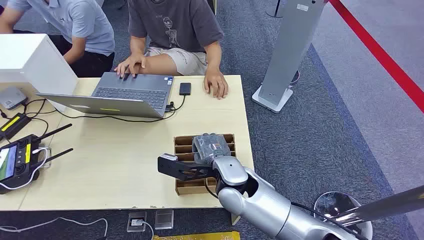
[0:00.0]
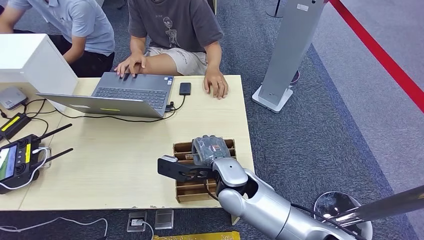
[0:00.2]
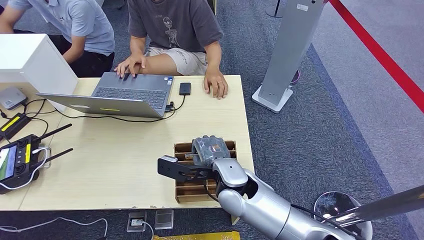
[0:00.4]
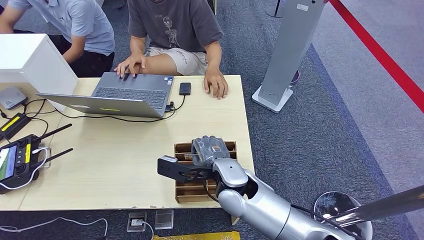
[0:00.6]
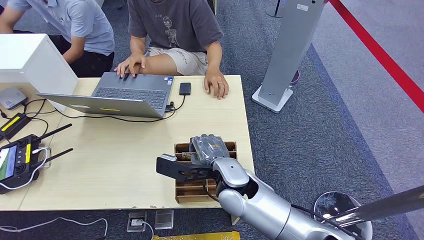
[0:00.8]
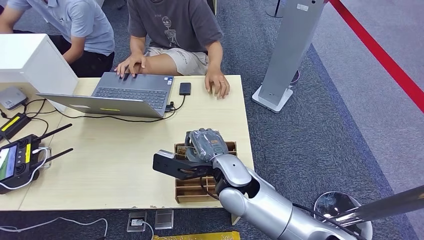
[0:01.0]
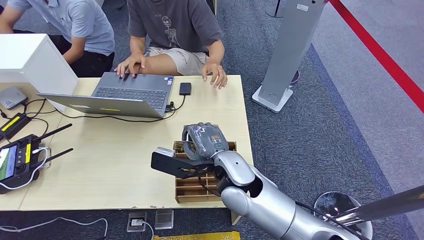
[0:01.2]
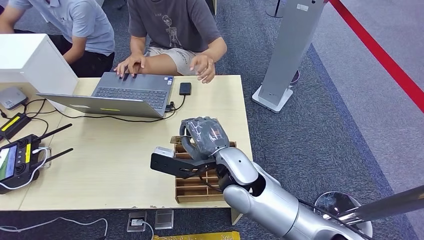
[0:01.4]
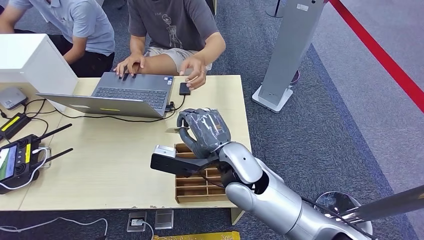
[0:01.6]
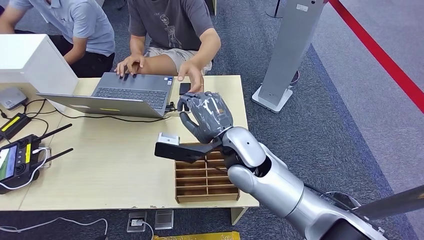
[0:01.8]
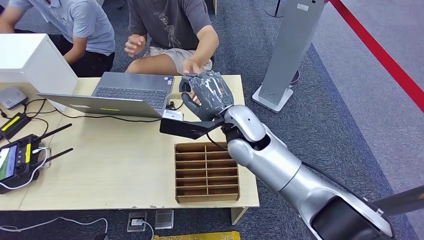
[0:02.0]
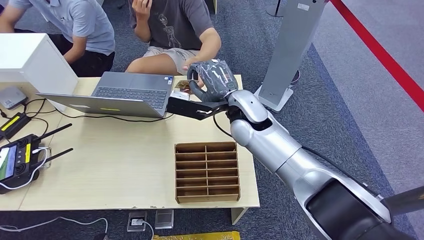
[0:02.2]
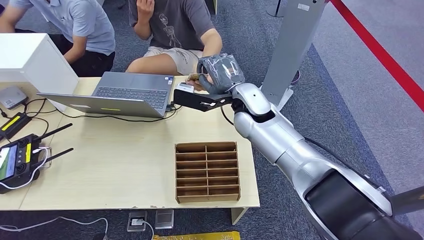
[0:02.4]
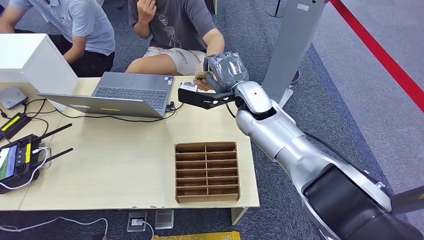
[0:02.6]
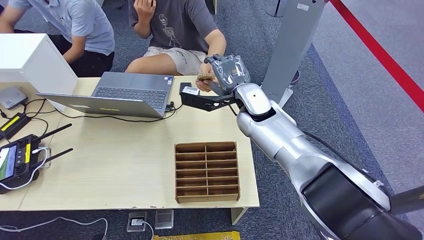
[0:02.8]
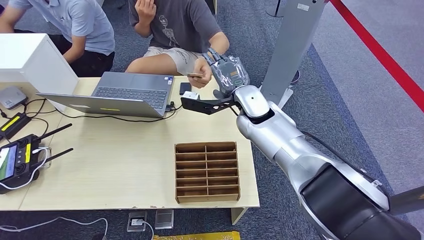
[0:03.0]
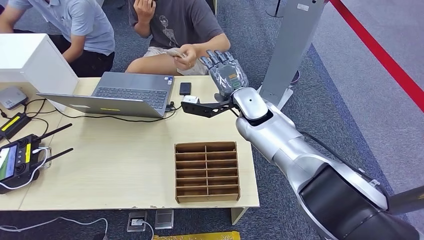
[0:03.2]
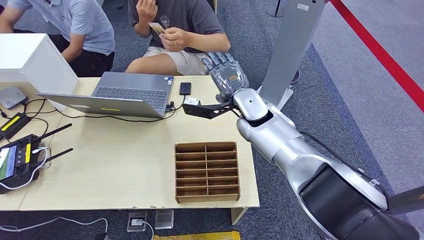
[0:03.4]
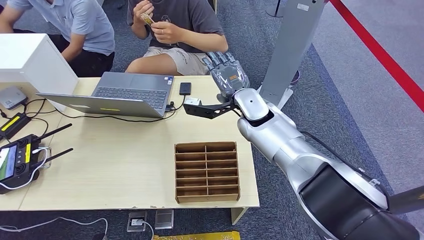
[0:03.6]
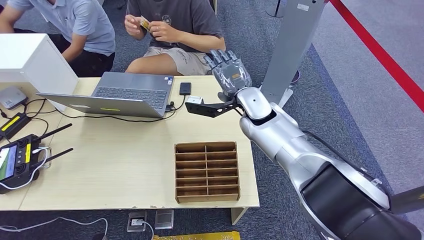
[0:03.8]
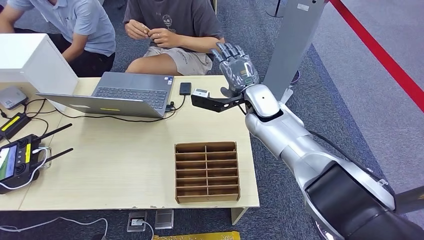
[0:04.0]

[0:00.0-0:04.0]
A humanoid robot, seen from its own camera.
Step, 0:00.0 to 0:01.6: Pick up the key card from the card box.
Step, 0:01.8 to 0:04.0: Hand the key card to the target.
0:02.6 to 0:04.0: There are only small adjustments of the hands.
